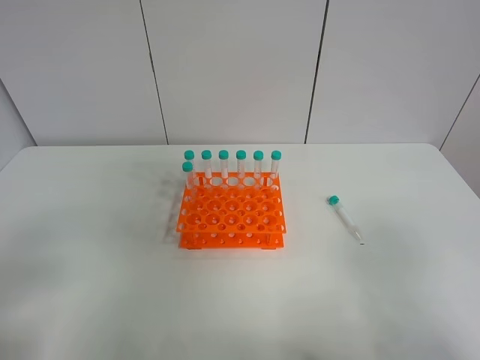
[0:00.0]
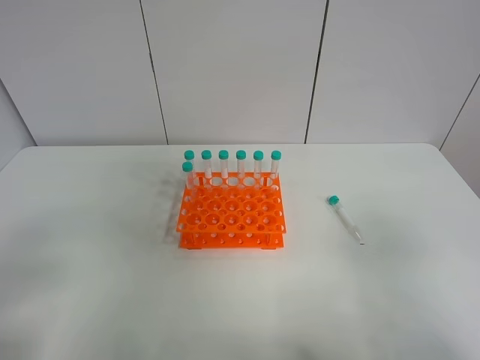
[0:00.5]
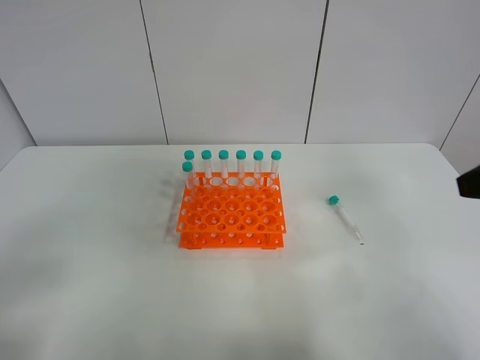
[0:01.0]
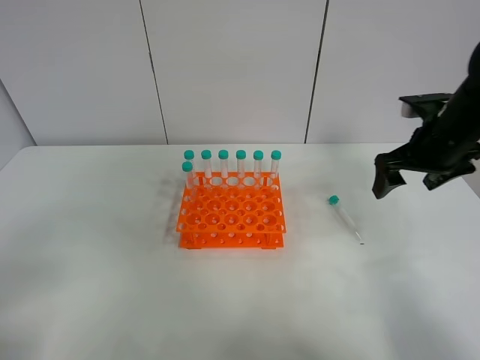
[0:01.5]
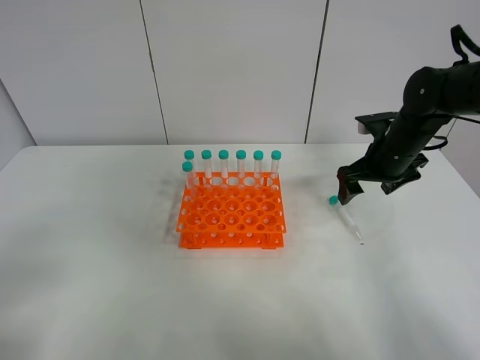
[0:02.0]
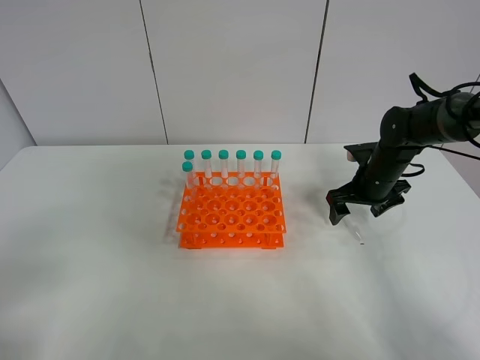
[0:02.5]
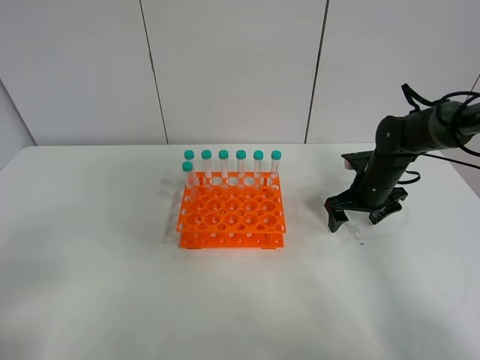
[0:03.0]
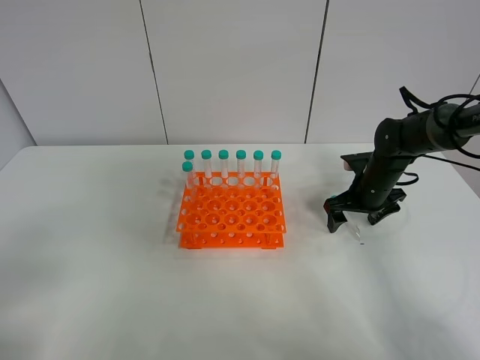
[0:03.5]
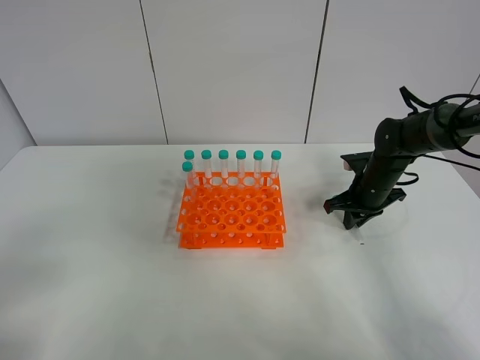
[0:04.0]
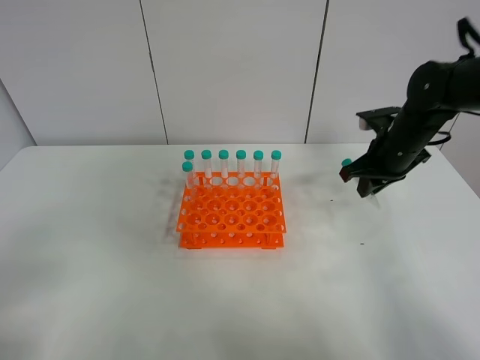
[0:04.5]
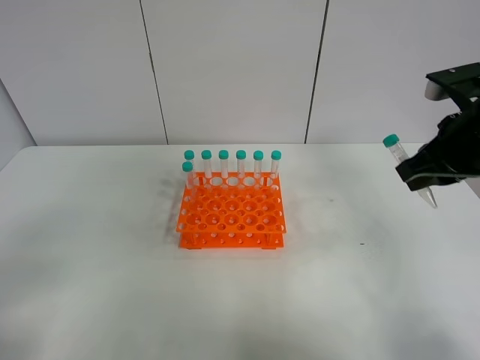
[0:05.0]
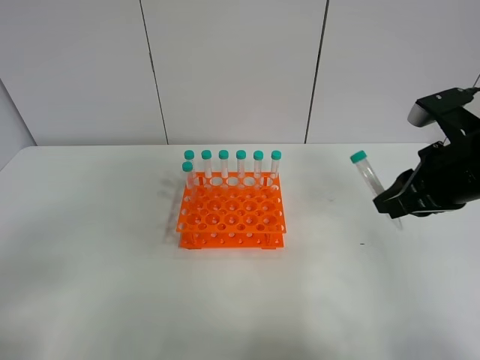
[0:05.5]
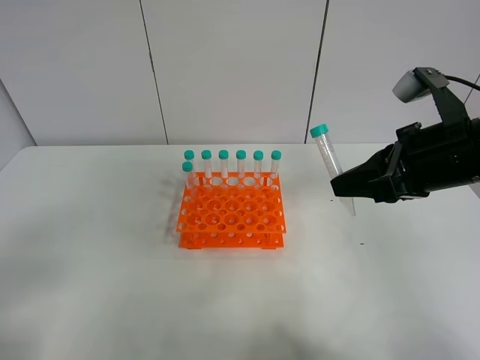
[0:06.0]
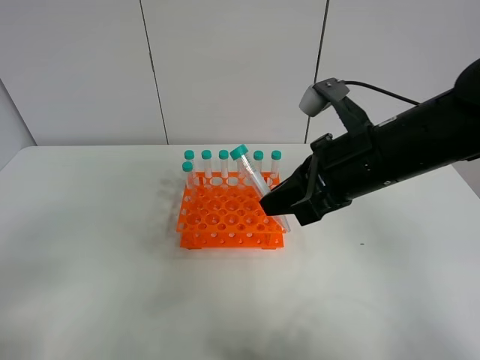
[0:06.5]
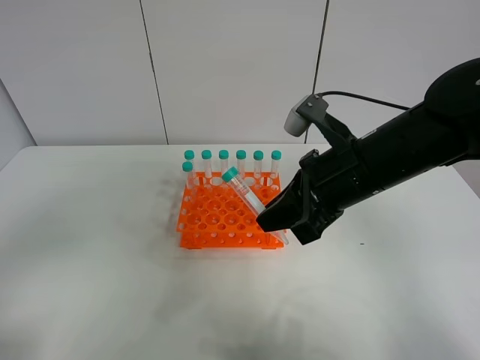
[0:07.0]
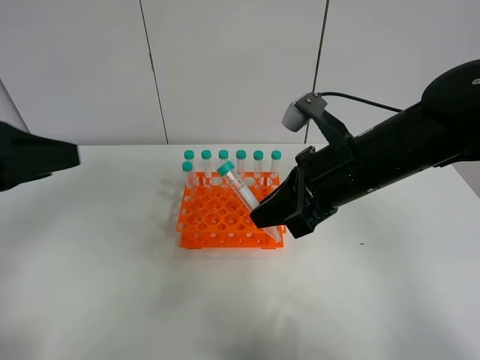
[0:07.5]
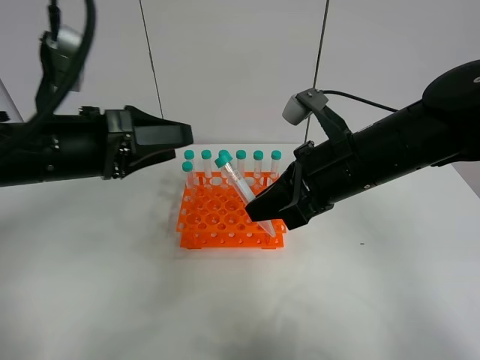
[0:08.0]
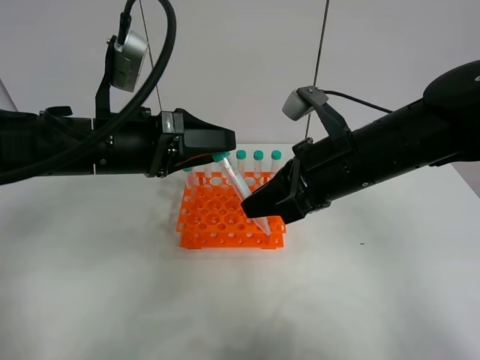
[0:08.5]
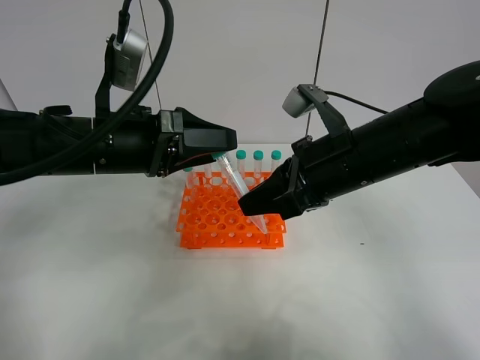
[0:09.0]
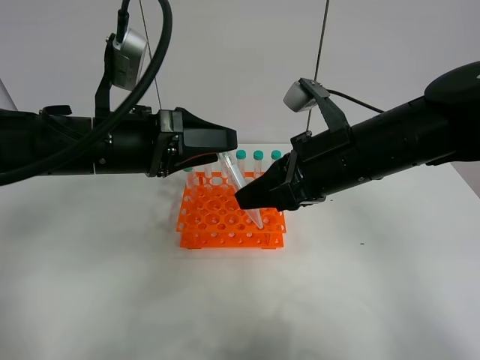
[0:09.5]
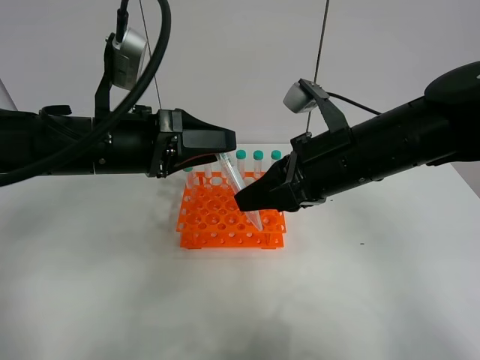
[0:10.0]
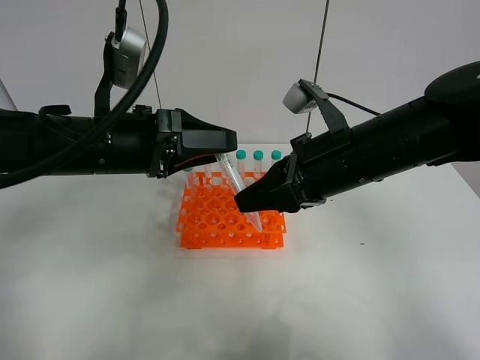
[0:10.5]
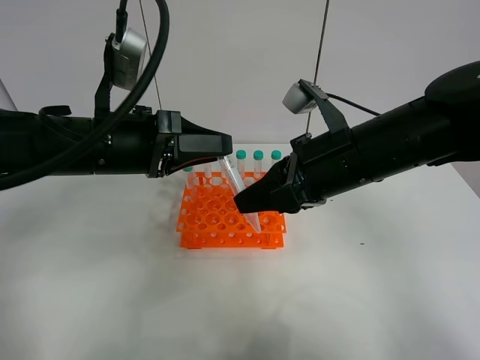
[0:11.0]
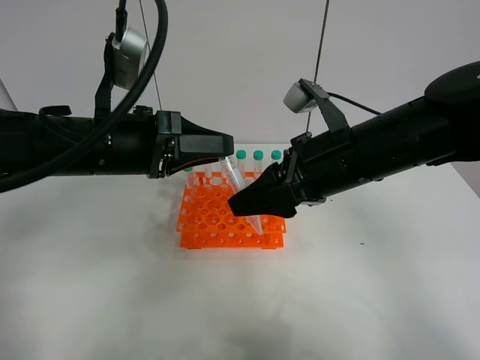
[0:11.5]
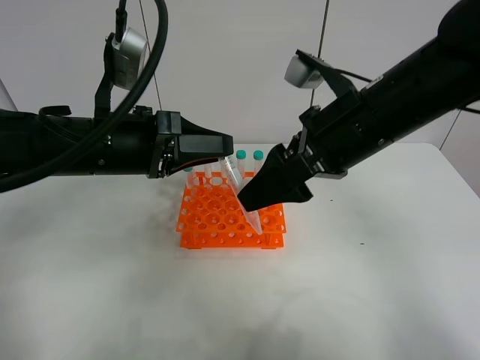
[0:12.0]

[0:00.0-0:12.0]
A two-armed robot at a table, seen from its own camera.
Task of the whole recording: Put the test tube on the table back onto the test tube rack.
Step, 0:00.0 to 0:04.0: Pick up the test tube with the right gripper.
Step, 0:04.5 to 0:11.5: Move the test tube from the right gripper to the left gripper.
0:00.0 to 0:02.0: The right gripper shifts about 40 cm forward.
0:02.0 to 0:04.0: The right gripper shifts about 10 cm downward, and closes up.
0:04.0 to 0:06.0: The right gripper is displaced upward and backward by some 25 cm.
0:06.0 to 0:08.0: The left gripper is displaced forward and to the right by roughly 25 cm; the right gripper travels to the left by approximately 10 cm.
0:08.0 to 0:10.0: The grippers move only a little.
0:10.0 to 0:12.0: The left gripper closes up. The right gripper opens up.

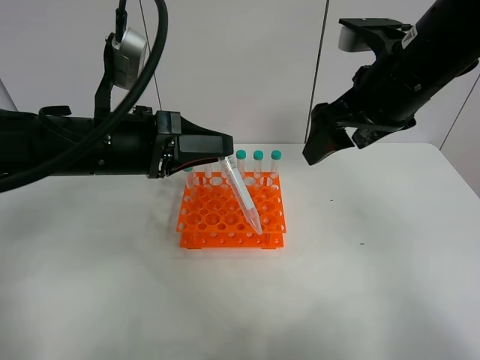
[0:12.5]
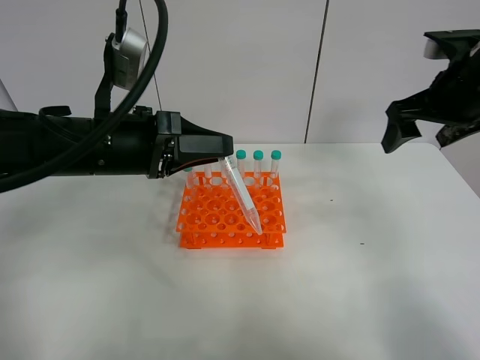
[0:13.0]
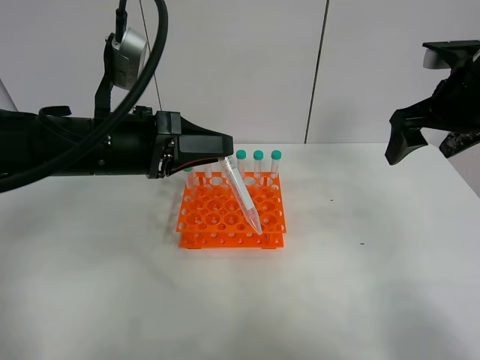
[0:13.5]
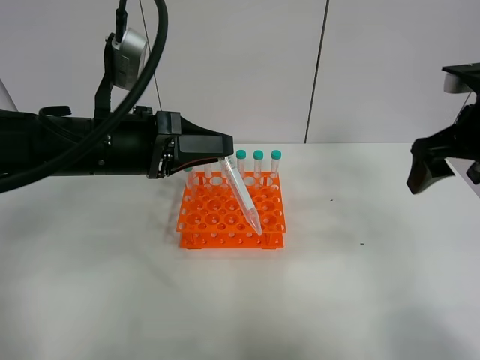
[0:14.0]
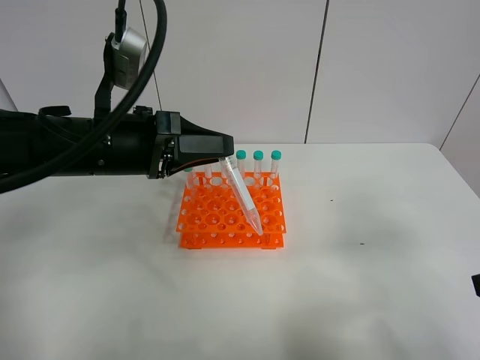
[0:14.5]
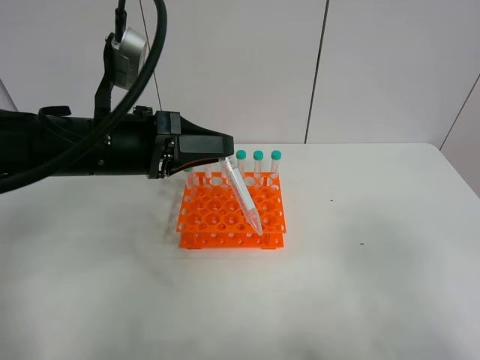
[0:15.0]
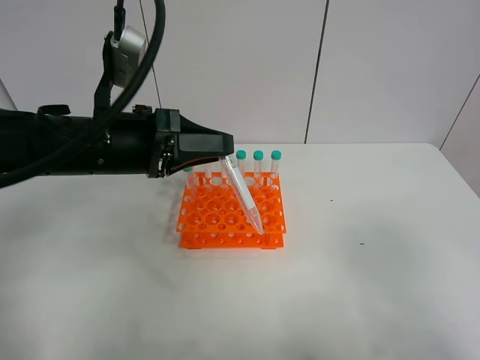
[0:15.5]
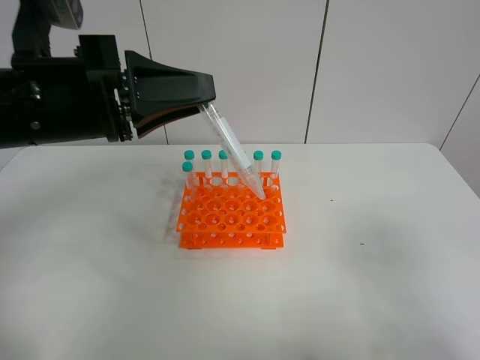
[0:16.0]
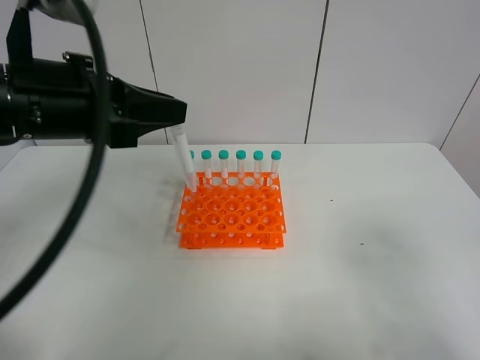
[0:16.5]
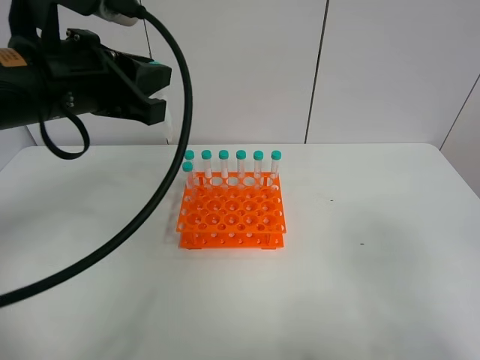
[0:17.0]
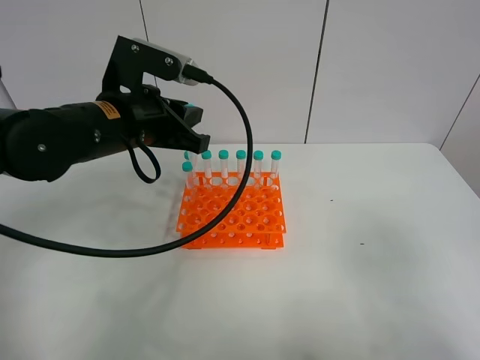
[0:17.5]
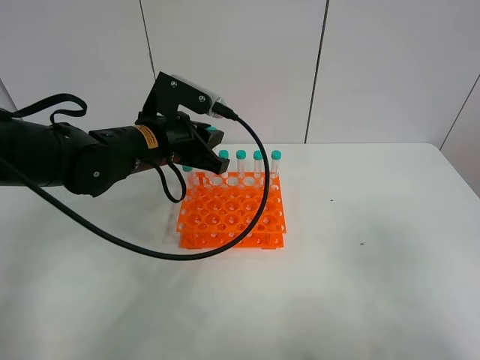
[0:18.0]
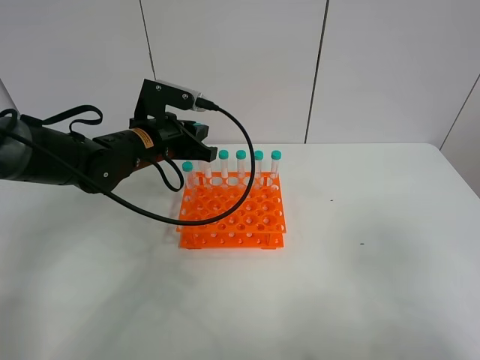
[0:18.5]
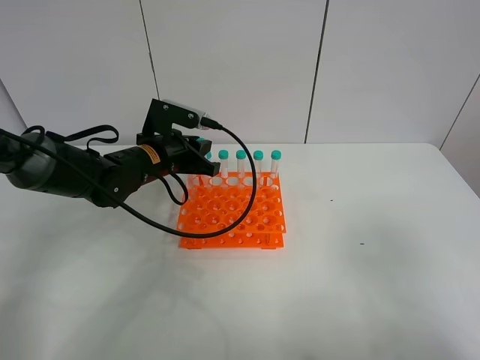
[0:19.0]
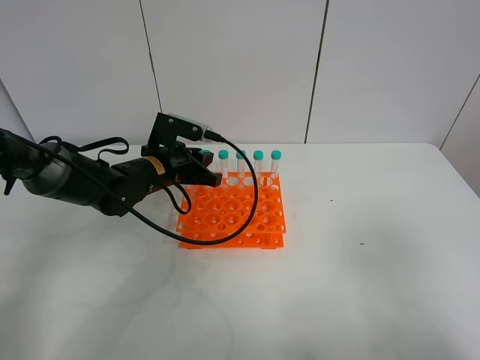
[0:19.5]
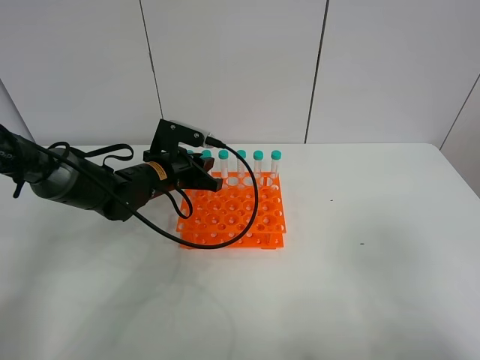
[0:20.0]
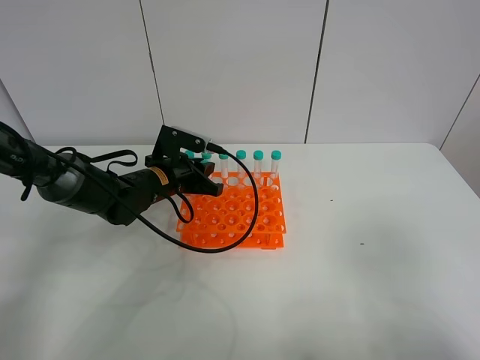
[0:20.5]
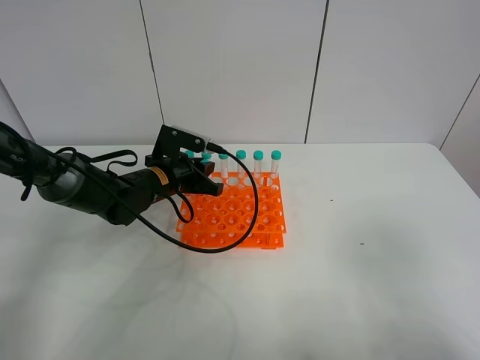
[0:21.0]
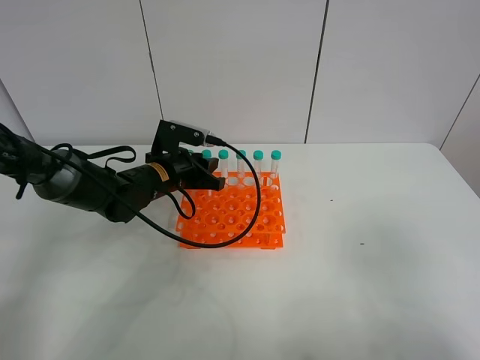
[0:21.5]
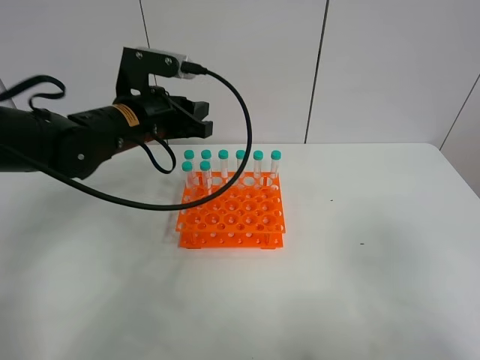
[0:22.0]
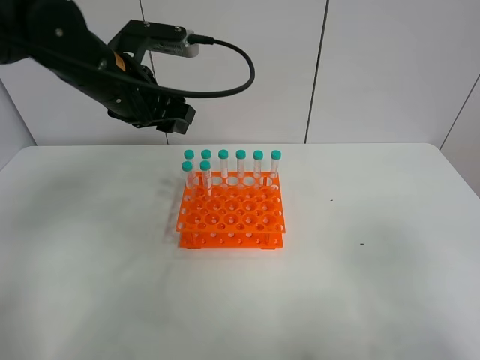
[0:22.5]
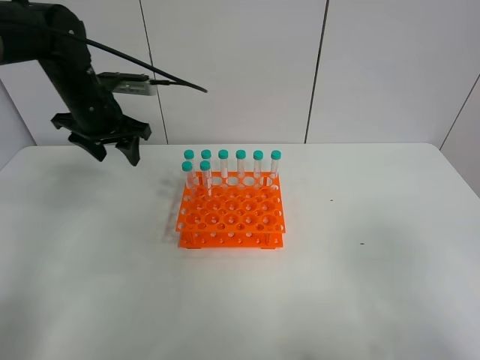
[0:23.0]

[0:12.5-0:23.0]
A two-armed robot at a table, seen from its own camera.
Task of the whole recording: Put the test tube on the table back onto the test tube rack.
Step, 0:12.5 to 0:21.0: Place the test tube on the test tube rack with the left gripper.
0:12.5 to 0:14.5: The right gripper shifts about 25 cm backward and to the right.
0:14.5 to 0:16.5: The right gripper goes roughly 5 cm backward. Meanwhile the left gripper heads upward, covering approximately 5 cm.
0:16.5 to 0:19.0: The left gripper travels downward and forward by about 20 cm.
0:19.0 to 0:21.0: The grippers stay close to where they were, moving slightly.
0:21.0 to 0:23.0: The left gripper goes roughly 20 cm upward, to the left and forward, and opens its fingers.

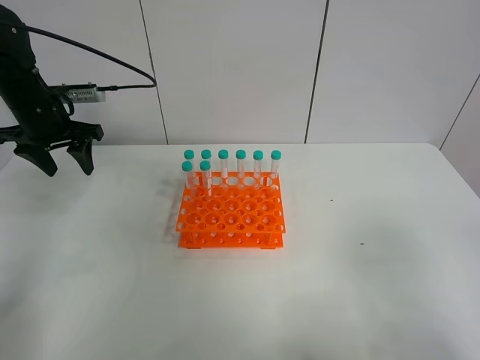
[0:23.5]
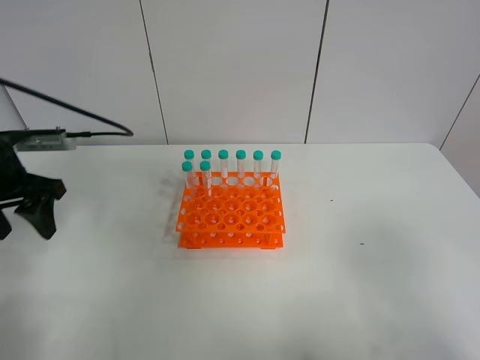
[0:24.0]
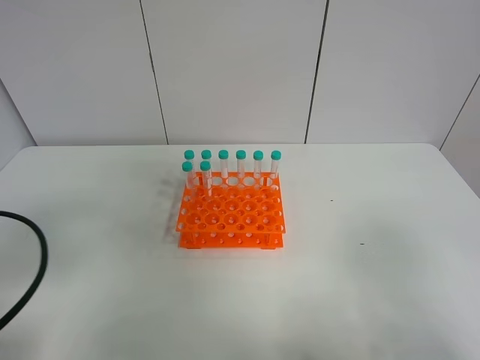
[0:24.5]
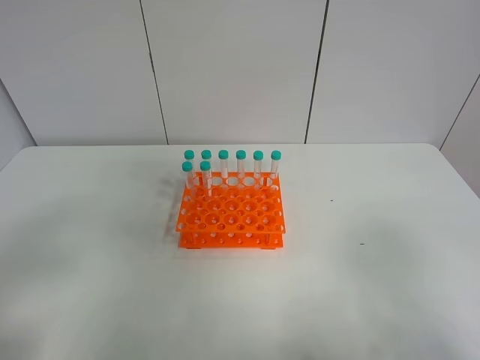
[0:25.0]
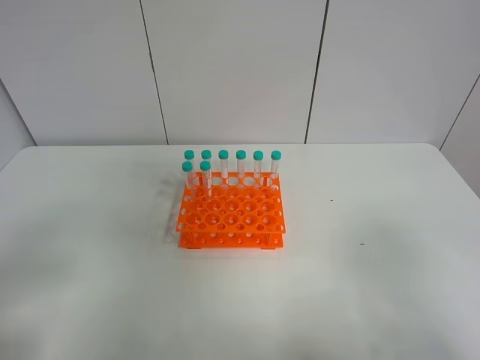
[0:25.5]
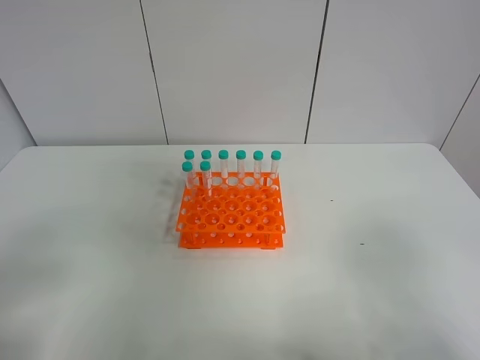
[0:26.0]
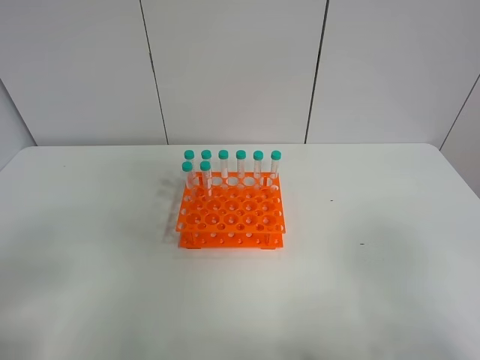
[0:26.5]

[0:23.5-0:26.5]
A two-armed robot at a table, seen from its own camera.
Task of the whole recording: Put the test tube on the table back onto the test tube rack.
0:23.5 to 0:25.0: The left gripper shifts some 35 cm backward.
